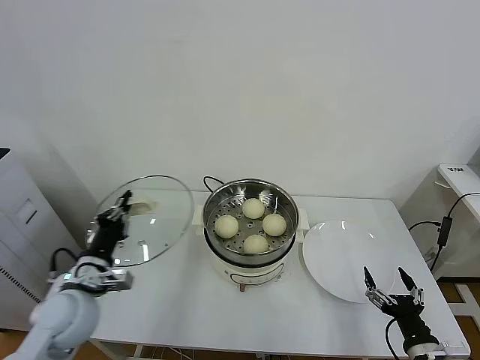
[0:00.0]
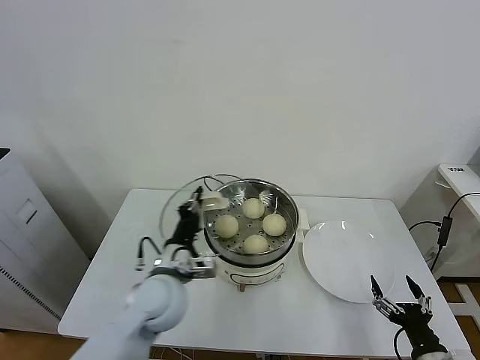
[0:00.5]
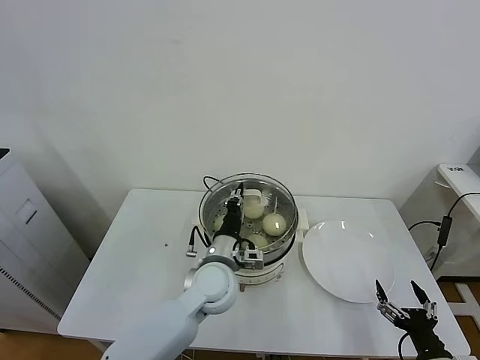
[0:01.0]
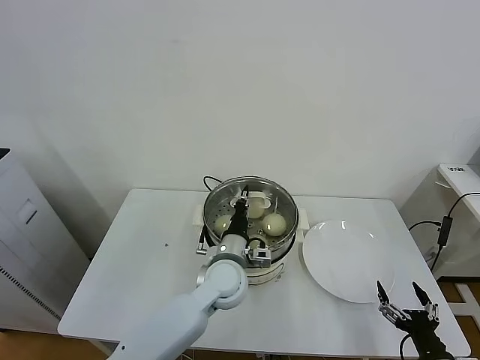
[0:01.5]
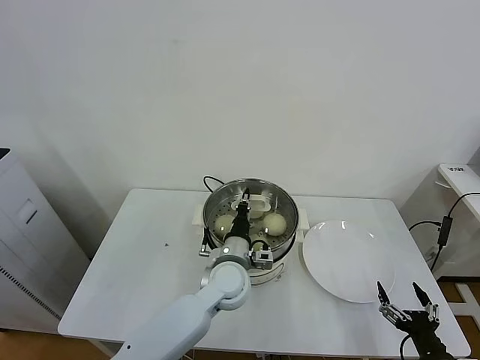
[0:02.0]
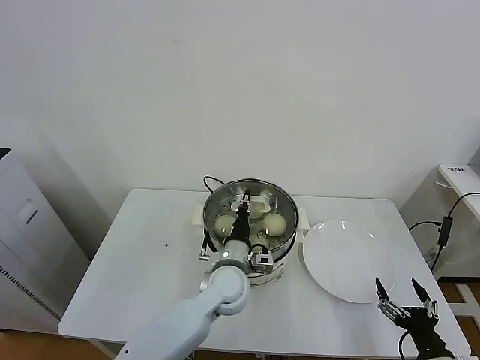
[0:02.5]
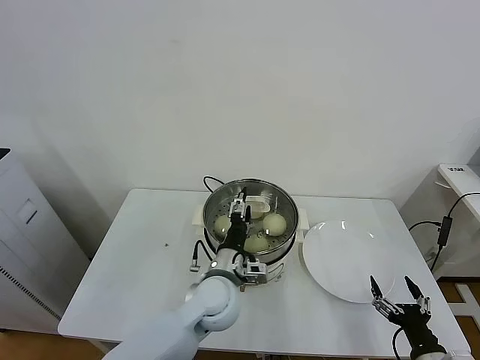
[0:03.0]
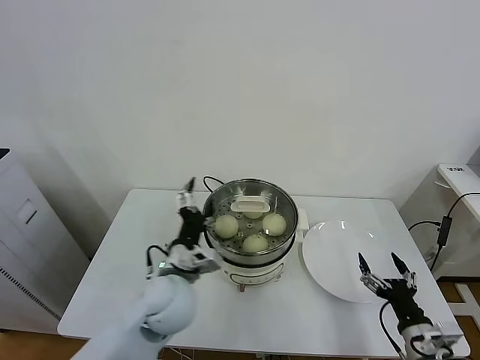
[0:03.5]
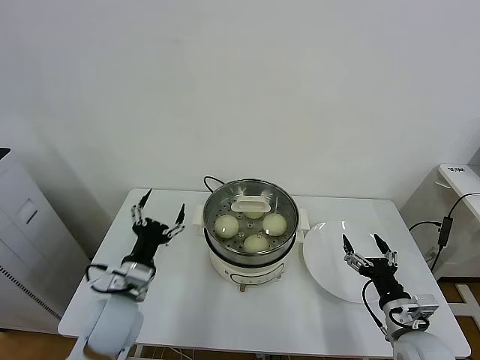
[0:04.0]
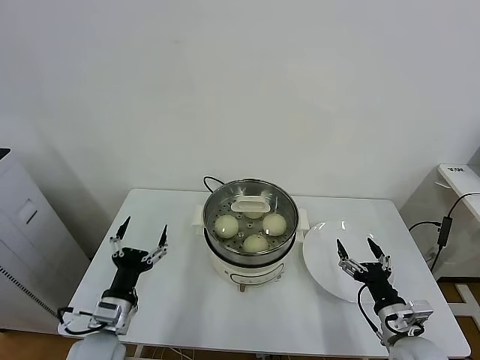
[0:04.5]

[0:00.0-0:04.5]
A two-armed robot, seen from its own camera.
Task of the whole recording: take steamed baozi put them in steamer.
Step, 0:00.0 to 0:02.5: Place the pot lid on the steamer with left gripper.
0:00.0 to 0:02.0: The left gripper travels to the right by approximately 30 cm.
0:02.0 to 0:04.5: The left gripper goes roughly 25 cm to the left and backward, and opens up. The right gripper moves forward, roughly 10 cm.

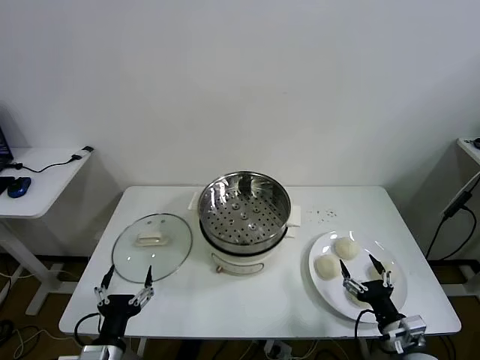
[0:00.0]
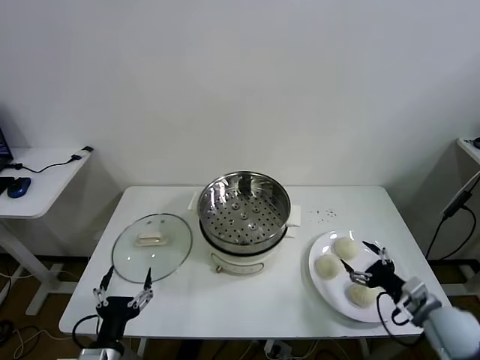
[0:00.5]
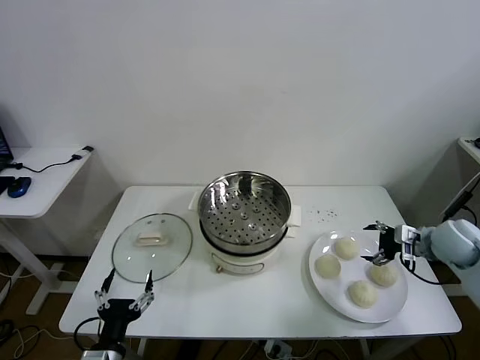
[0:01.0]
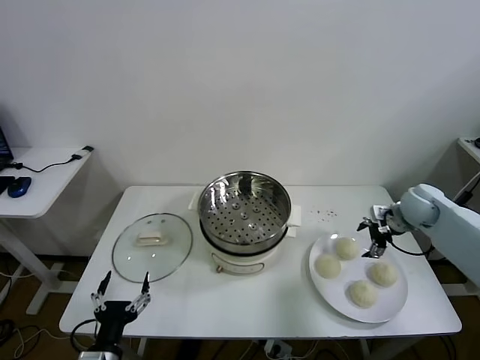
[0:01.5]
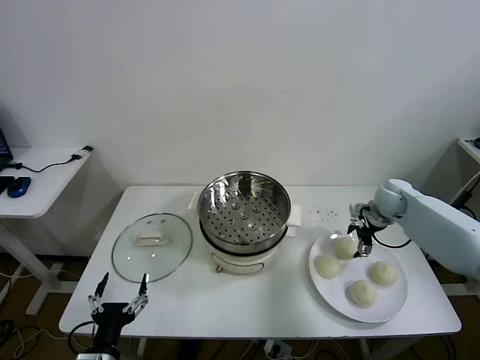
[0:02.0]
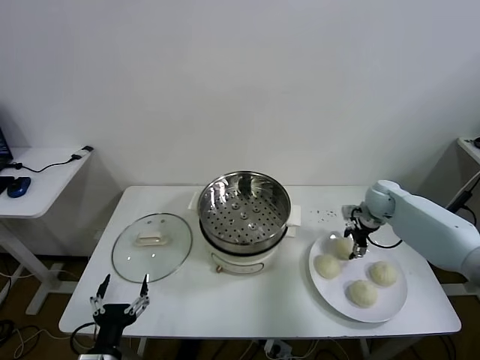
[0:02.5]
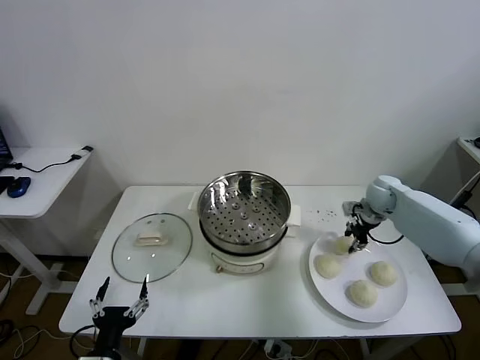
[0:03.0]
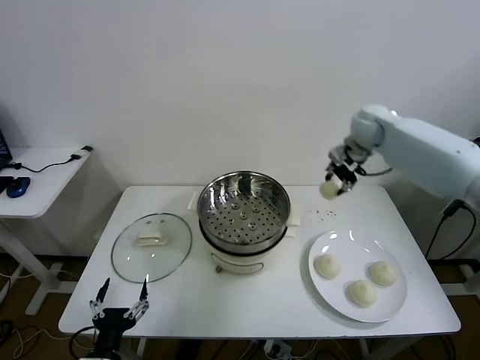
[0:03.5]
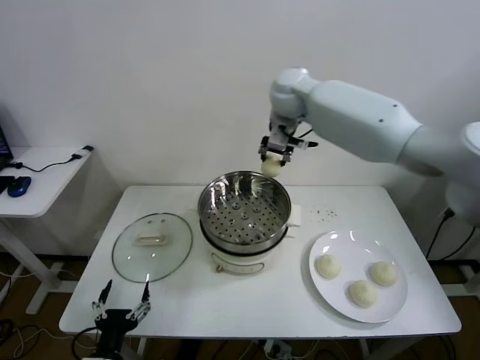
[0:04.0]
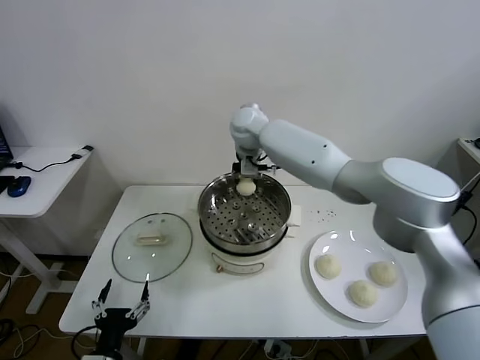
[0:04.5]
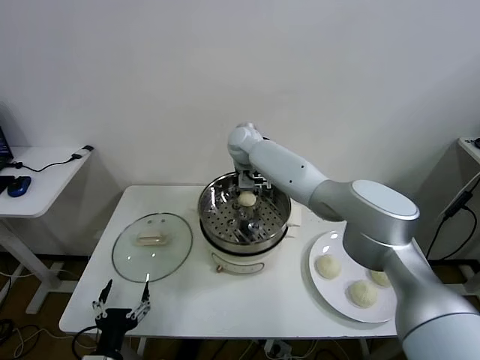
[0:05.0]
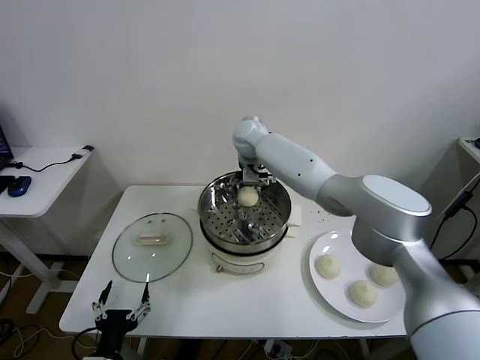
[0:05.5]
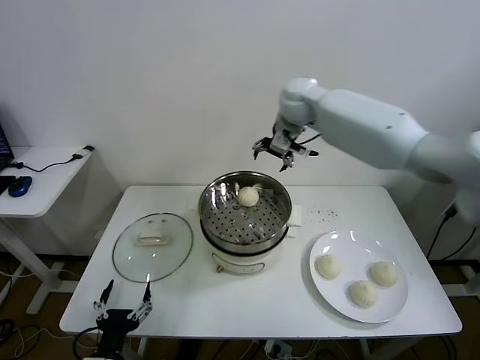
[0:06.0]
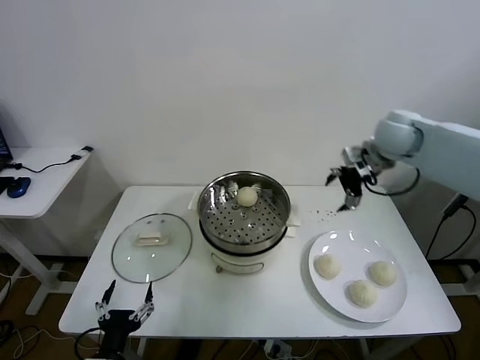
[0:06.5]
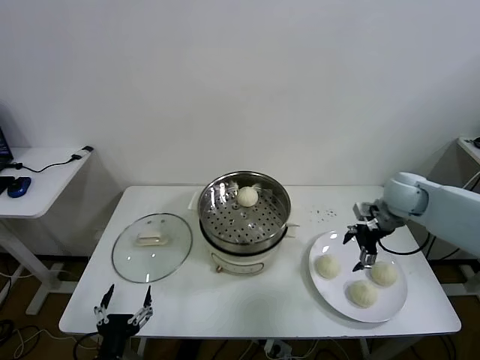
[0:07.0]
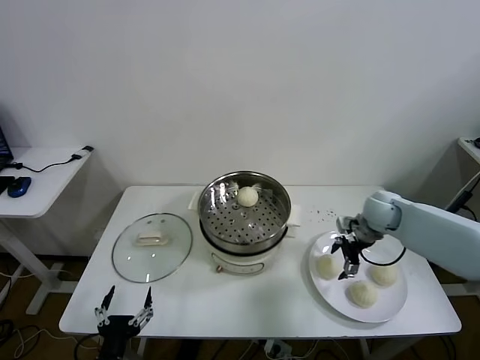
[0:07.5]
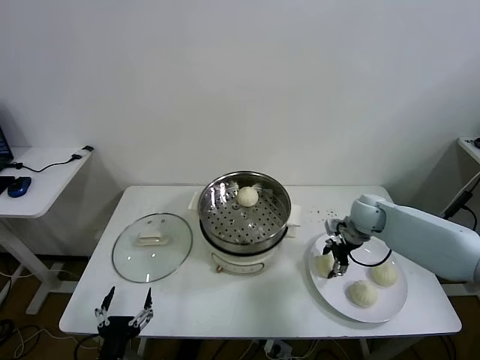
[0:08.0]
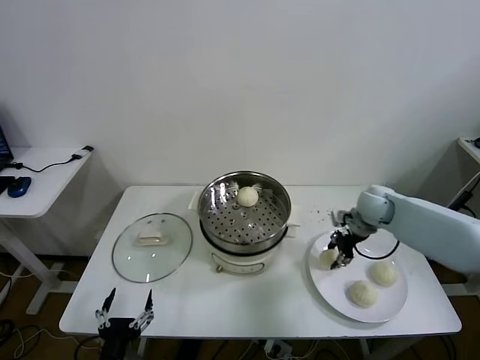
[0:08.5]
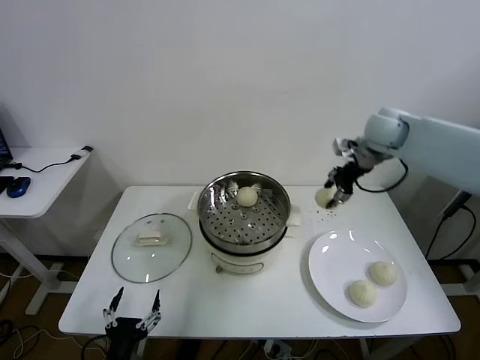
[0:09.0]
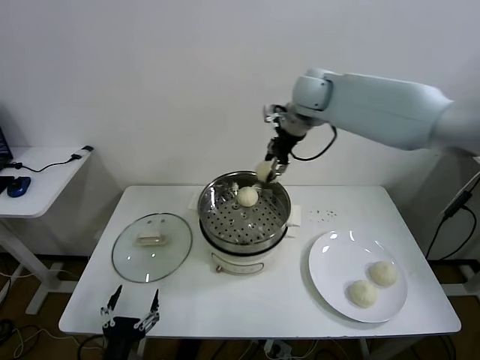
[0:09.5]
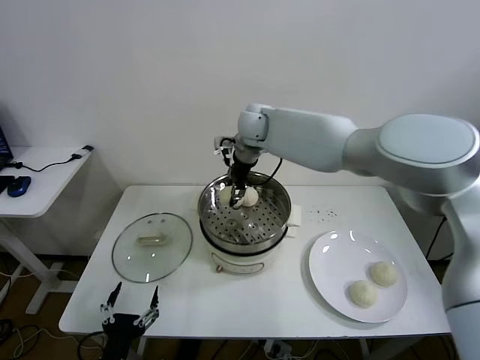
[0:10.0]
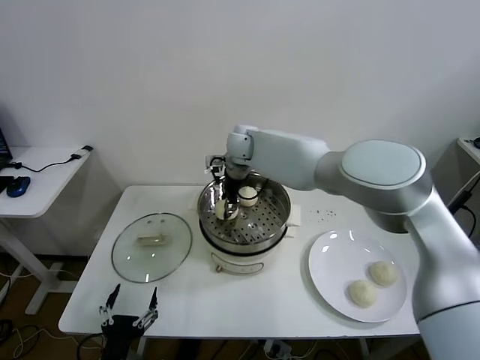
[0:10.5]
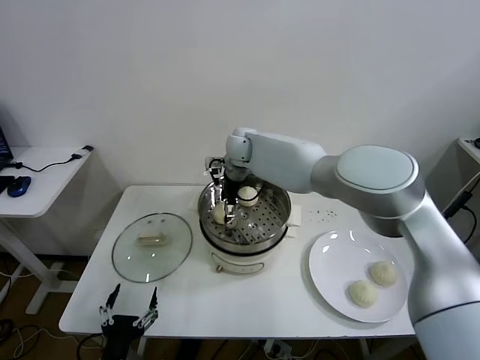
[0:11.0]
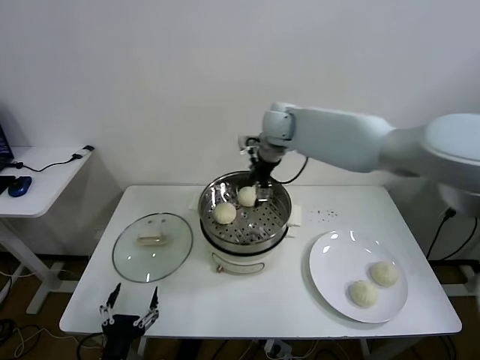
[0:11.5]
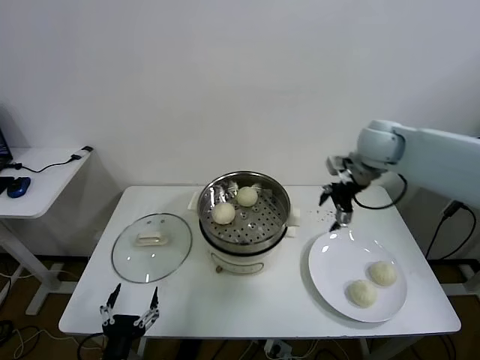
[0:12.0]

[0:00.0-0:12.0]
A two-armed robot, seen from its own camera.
Task of the whole recording: take steamed baozi put them in steamer.
Step, 0:00.0 to 0:02.5: Grasp the baozi in the plate with right gripper.
Step, 0:03.0 to 0:05.5: Place the baozi on the steamer with right gripper.
Step, 0:06.0 to 0:08.0: Grasp the baozi in the plate with right gripper.
Step, 0:08.5 to 0:11.0: Place the baozi on the steamer with right gripper.
0:02.0 to 0:04.0: The right gripper heads to the left and upward, covering about 40 cm, and closes.
0:04.0 to 0:06.0: The right gripper heads to the right, covering some 10 cm, and opens its fingers.
0:06.0 to 0:08.0: The right gripper moves downward and to the right, about 30 cm, and closes.
0:08.0 to 0:10.0: The right gripper shifts approximately 35 cm to the left and upward.
0:10.0 to 0:12.0: The right gripper shifts approximately 30 cm to the right, and opens its fingers.

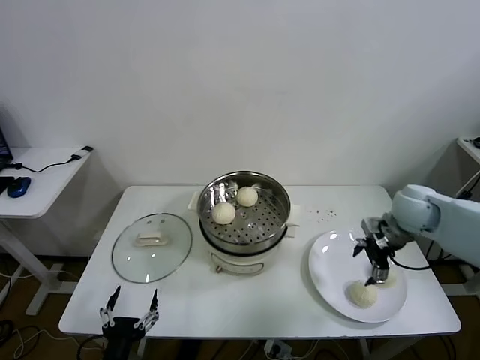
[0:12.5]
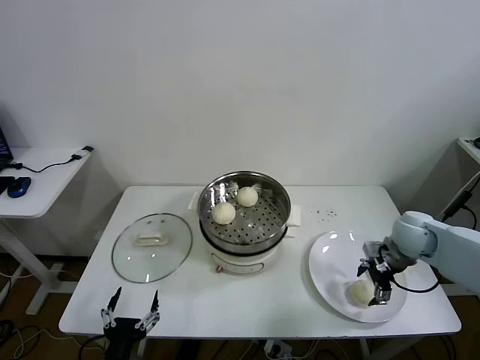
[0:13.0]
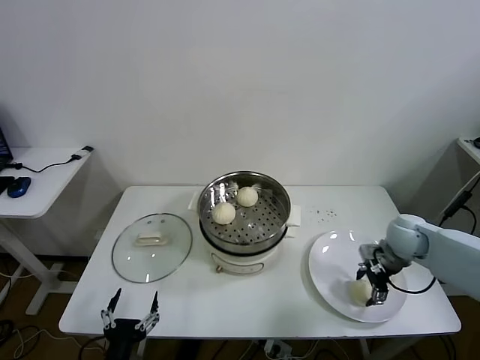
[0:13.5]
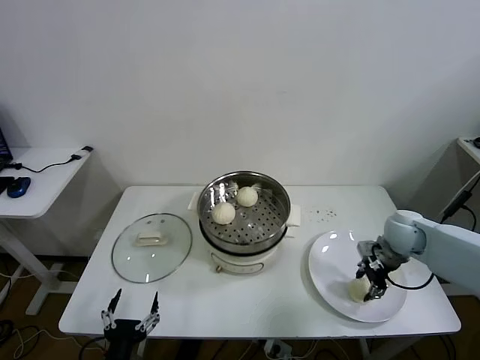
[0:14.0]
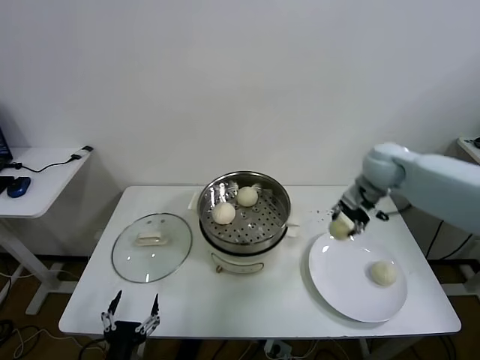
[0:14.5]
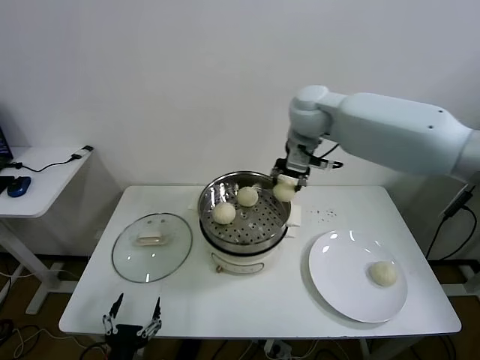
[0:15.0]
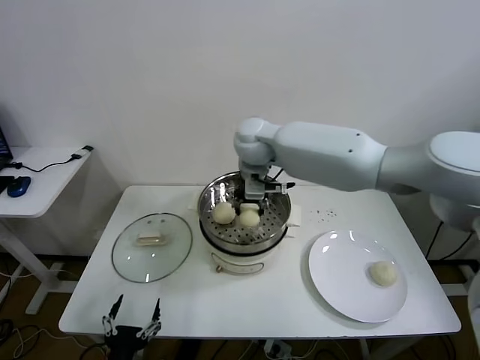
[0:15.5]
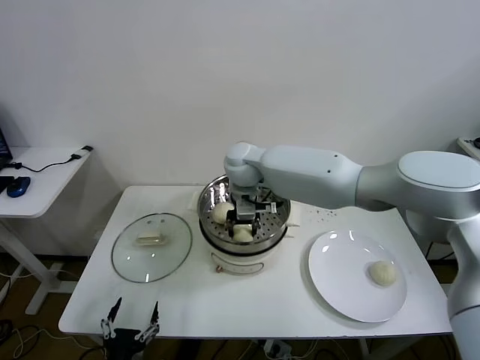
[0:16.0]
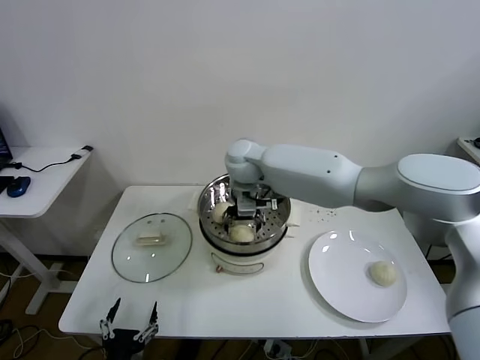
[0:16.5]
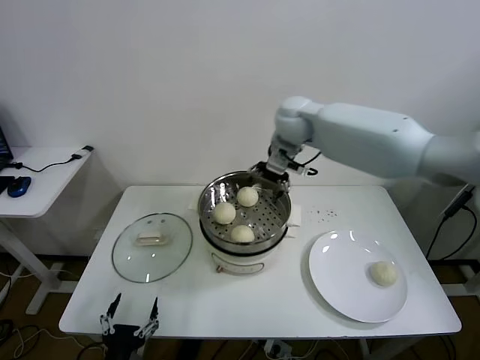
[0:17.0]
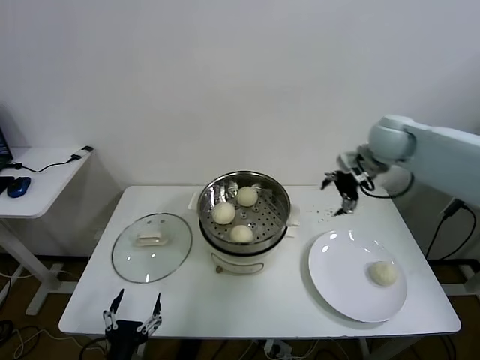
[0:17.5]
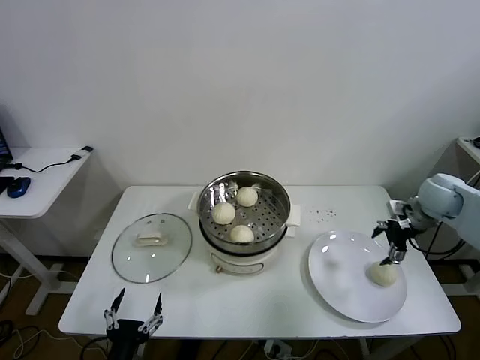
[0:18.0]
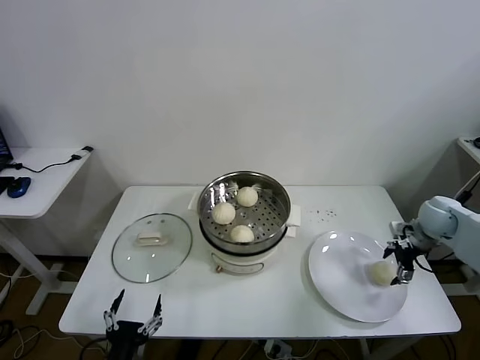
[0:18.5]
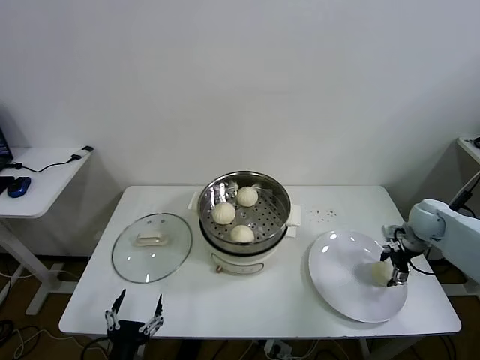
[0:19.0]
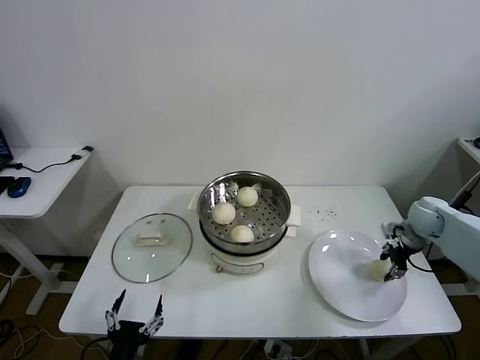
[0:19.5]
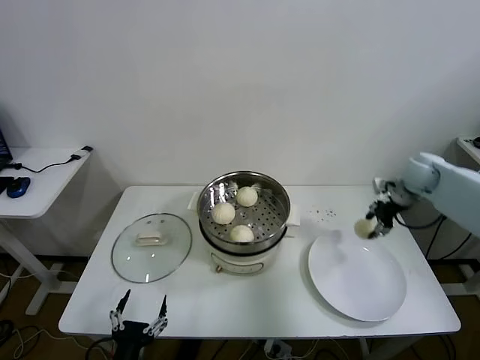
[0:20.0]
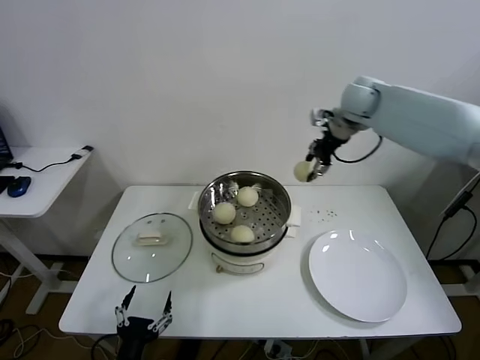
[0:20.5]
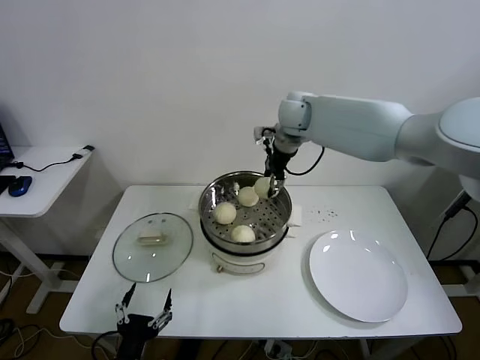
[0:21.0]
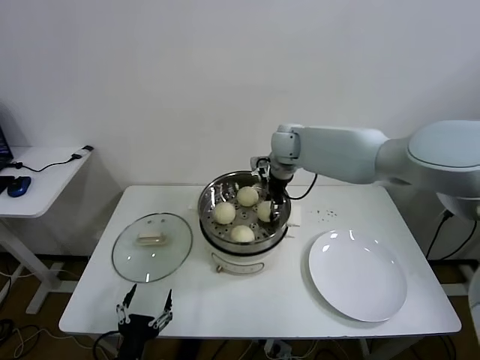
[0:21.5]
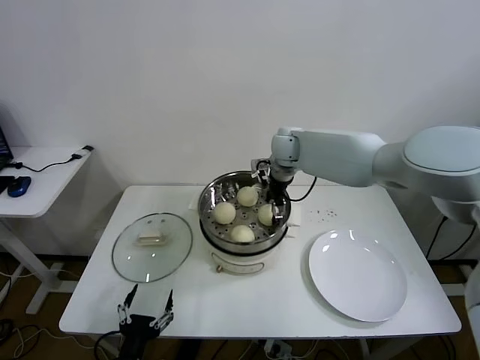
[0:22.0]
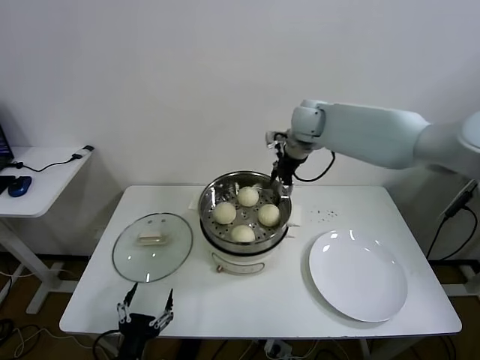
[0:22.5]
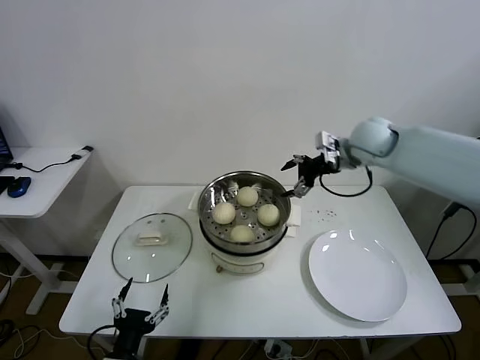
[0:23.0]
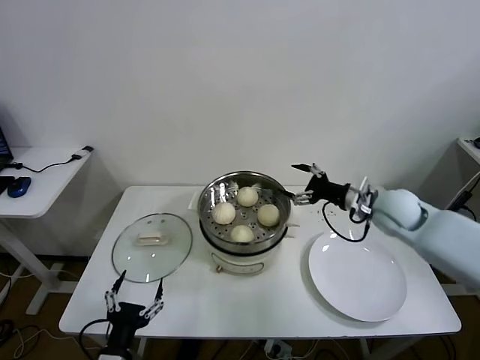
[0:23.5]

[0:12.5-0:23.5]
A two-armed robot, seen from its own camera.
Task of the whole recording: take steamed baozi put them in steamer.
Step, 0:14.0 to 0:16.5: Place the baozi on the steamer with right gripper.
Step, 0:17.0 to 0:19.0: Grasp the baozi in the plate with right gripper.
Step, 0:19.5 to 0:22.0: Place the baozi on the steamer with right gripper.
0:12.5 to 0:14.5: The right gripper is displaced upward, forward and to the left by some 15 cm, and closes its fingers.
0:14.5 to 0:16.0: The right gripper heads to the left, covering approximately 30 cm.
0:16.0 to 0:18.0: The right gripper moves to the right, about 50 cm, and opens.
0:18.0 to 0:20.0: The right gripper travels forward by about 5 cm, goes downward and returns, some 10 cm each way, and closes its fingers.
0:20.0 to 0:21.5: The right gripper is displaced to the left by about 30 cm.
0:21.5 to 0:23.5: The right gripper is displaced to the right and backward by approximately 25 cm, and opens.
